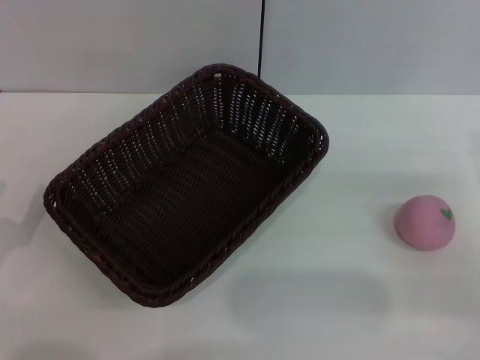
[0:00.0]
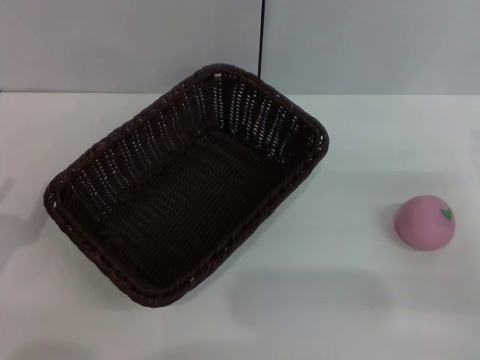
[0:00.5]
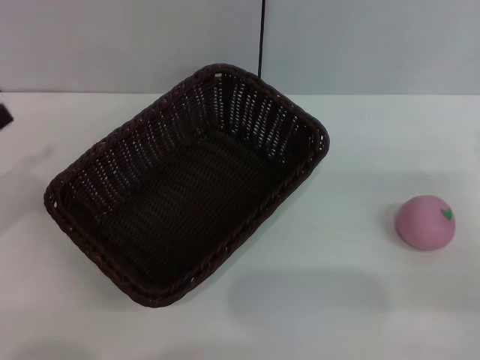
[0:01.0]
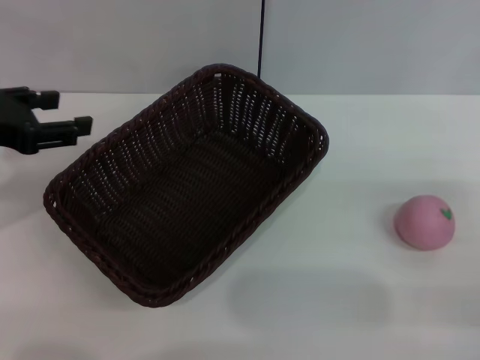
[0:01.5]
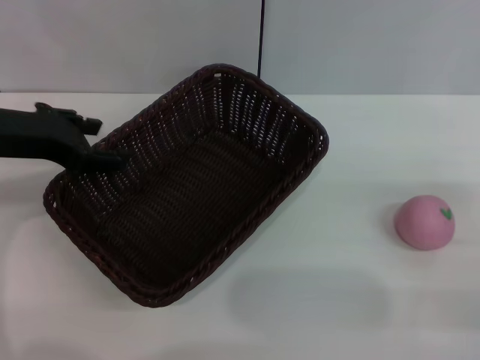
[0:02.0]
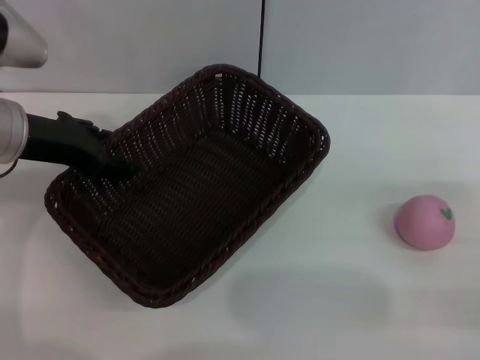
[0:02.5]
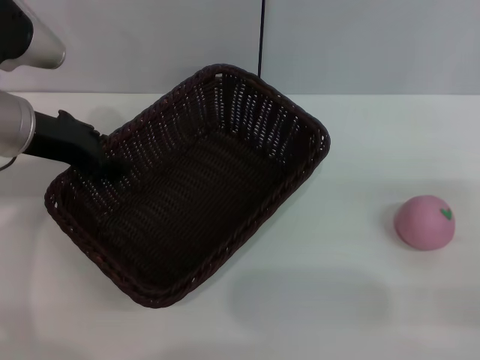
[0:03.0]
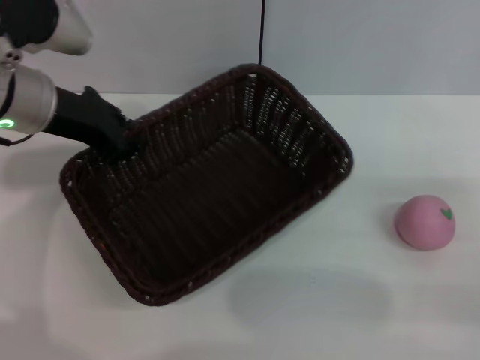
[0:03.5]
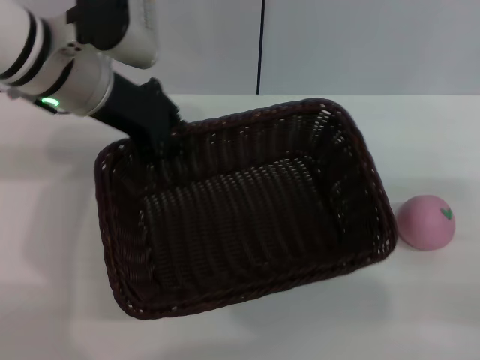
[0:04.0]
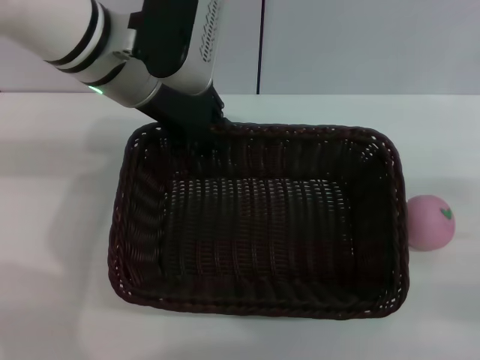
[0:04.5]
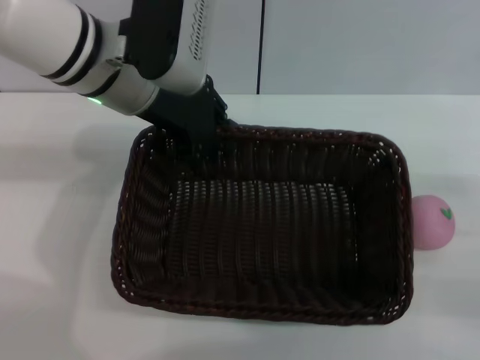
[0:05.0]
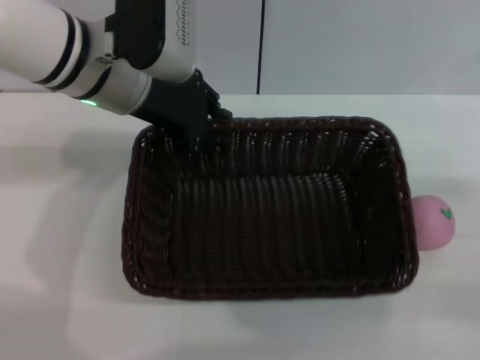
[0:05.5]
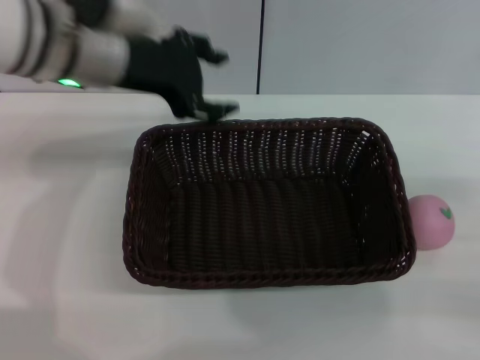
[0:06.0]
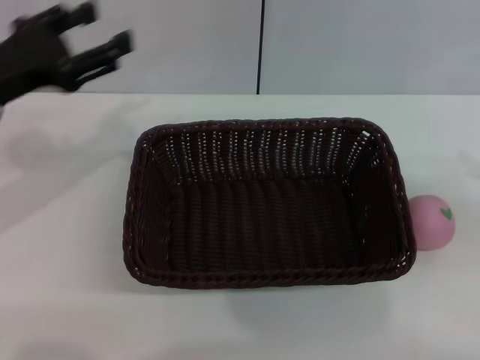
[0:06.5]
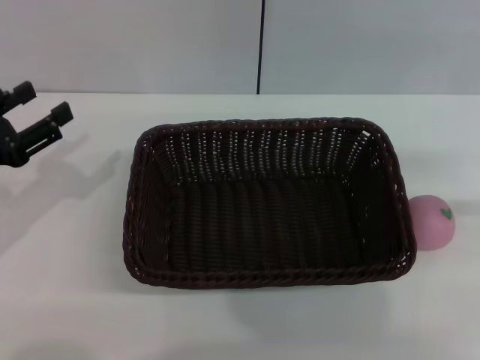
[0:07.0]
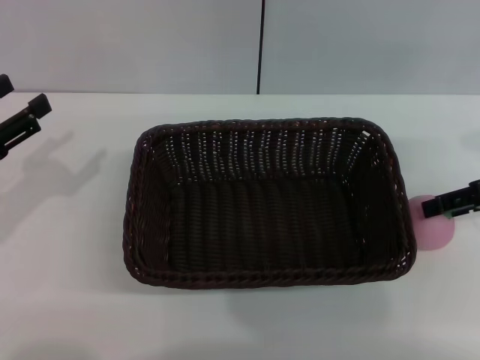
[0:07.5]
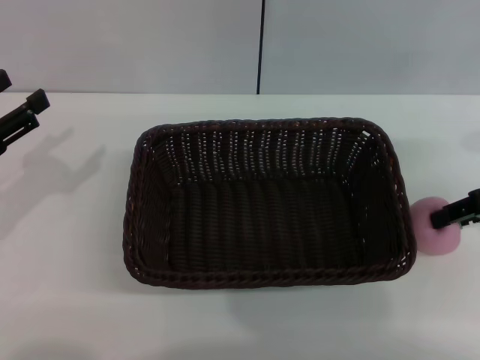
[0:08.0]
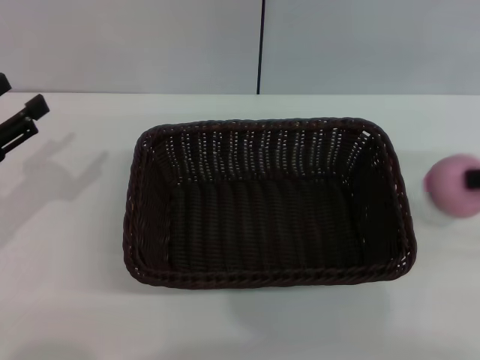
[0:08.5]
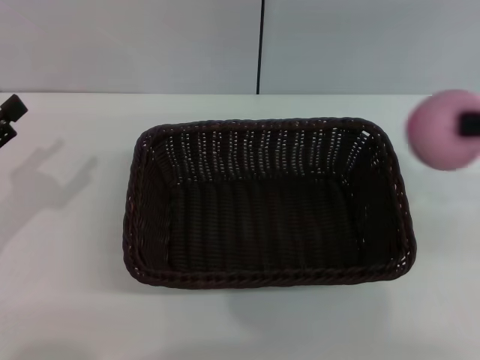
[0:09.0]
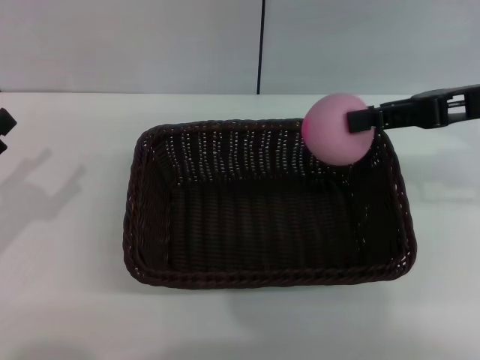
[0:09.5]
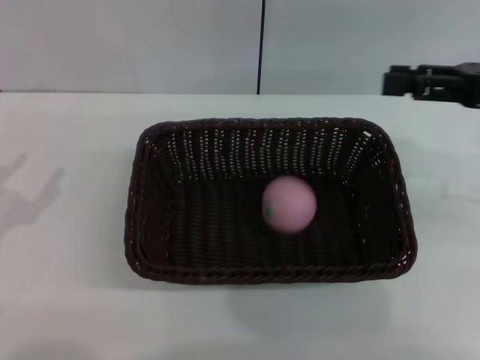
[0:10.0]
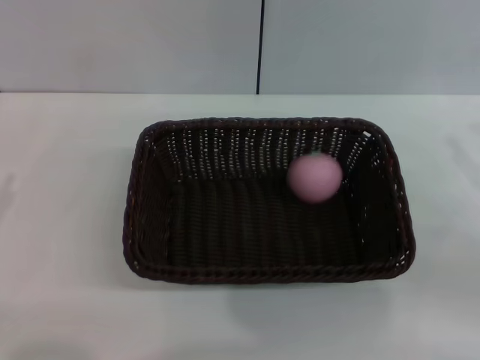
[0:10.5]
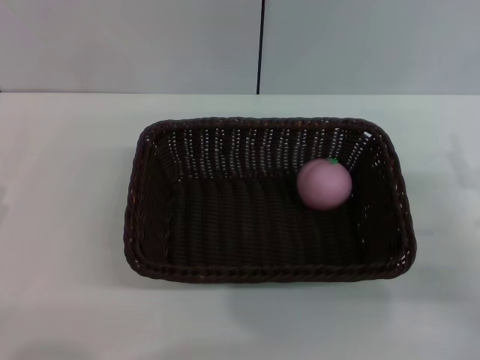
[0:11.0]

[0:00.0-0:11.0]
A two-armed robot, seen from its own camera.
Step, 0:00.0 to 0:04.0: Pick up the dark basket with the left gripper.
Step, 0:04.5 to 0:06.0: Place the dark basket in the center of view with the right gripper.
Step, 0:06.5 to 0:08.5: Pick up the peach with the left gripper.
Step, 0:09.0 to 0:09.5: Place the peach into the basket with the left gripper.
0:00.0 to 0:02.0: The left gripper goes some 25 cm forward, upward and to the right.
0:02.0 to 0:03.5: The left gripper moves some 5 cm, and closes up.
0:03.5 to 0:05.5: The left gripper travels to the right by approximately 5 cm.
0:05.5 to 0:07.5: The left gripper moves to the left, backward and downward, about 25 cm, and opens up. The right gripper travels forward and upward by some 15 cm.
0:07.5 to 0:09.0: The right gripper moves upward, about 10 cm, and closes.
0:09.0 to 0:11.0: The right gripper travels downward by approximately 20 cm, and opens its fingers, while the left gripper is displaced backward and downward by approximately 10 cm.
